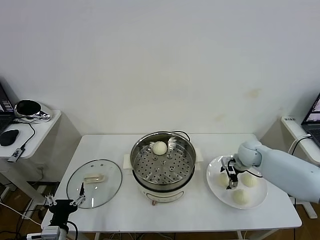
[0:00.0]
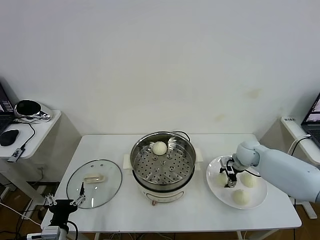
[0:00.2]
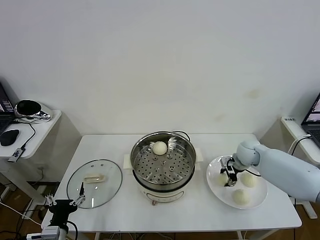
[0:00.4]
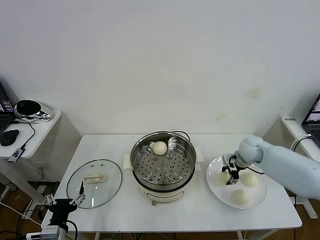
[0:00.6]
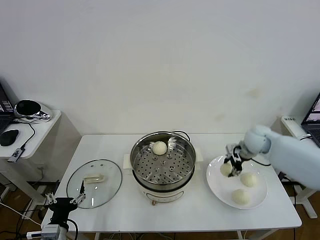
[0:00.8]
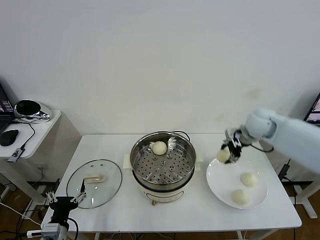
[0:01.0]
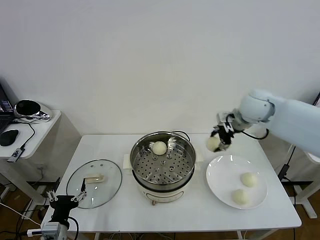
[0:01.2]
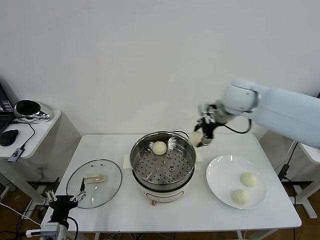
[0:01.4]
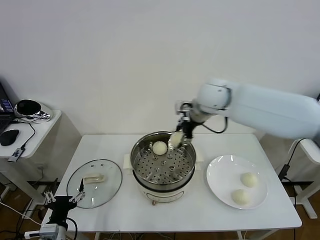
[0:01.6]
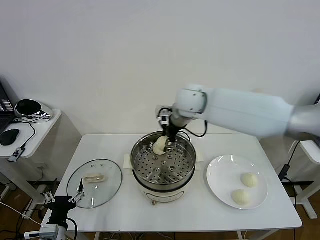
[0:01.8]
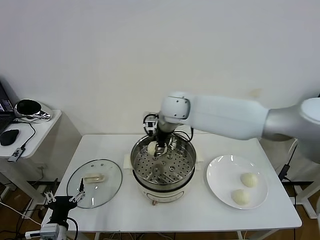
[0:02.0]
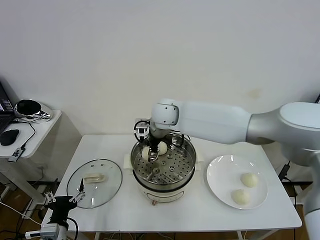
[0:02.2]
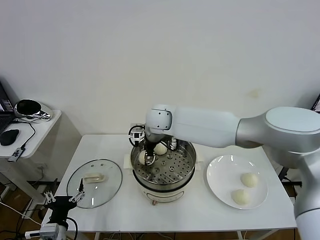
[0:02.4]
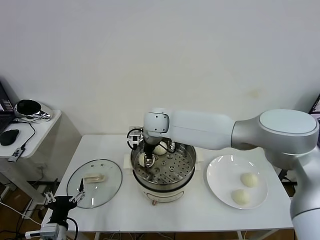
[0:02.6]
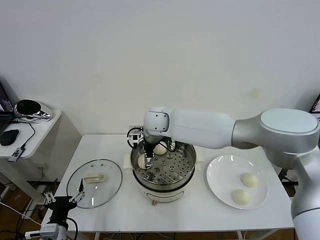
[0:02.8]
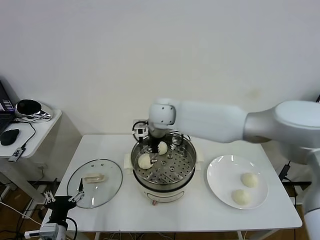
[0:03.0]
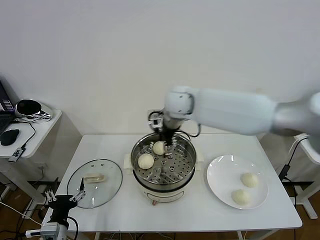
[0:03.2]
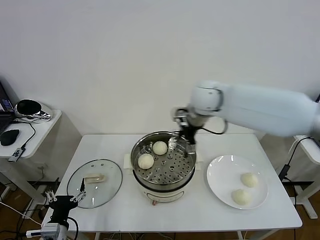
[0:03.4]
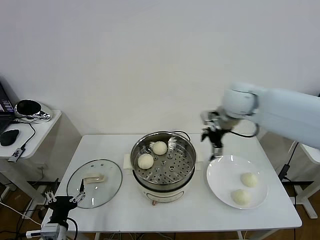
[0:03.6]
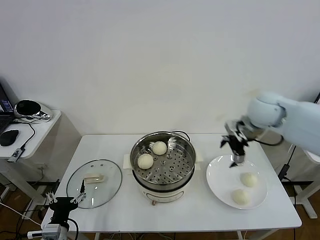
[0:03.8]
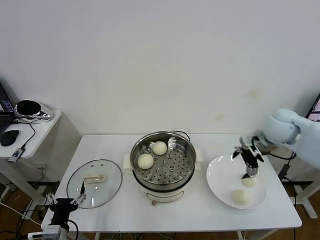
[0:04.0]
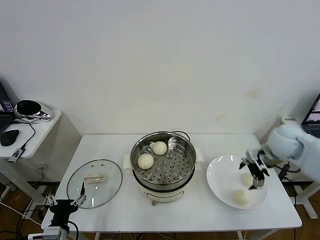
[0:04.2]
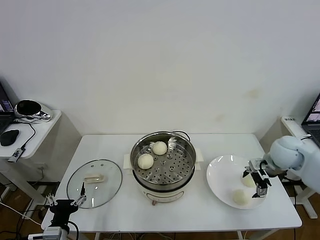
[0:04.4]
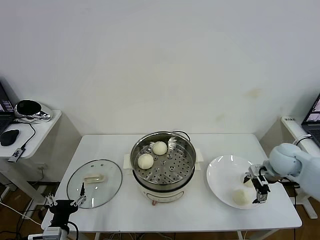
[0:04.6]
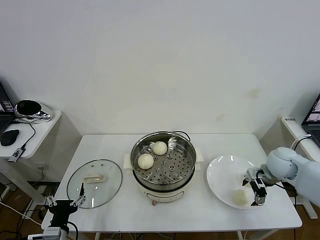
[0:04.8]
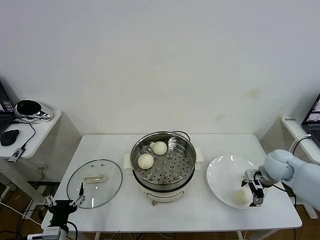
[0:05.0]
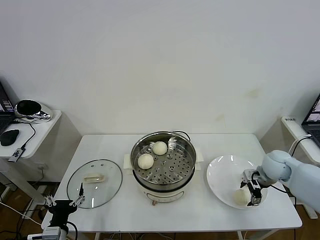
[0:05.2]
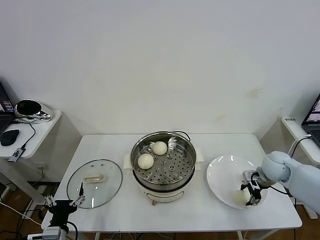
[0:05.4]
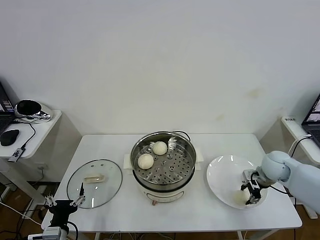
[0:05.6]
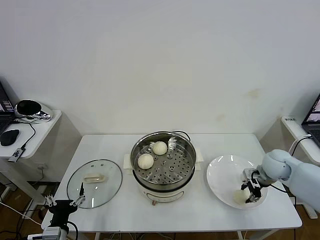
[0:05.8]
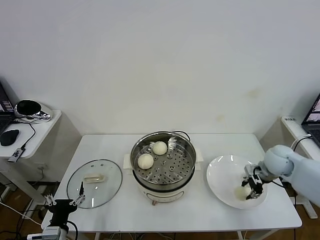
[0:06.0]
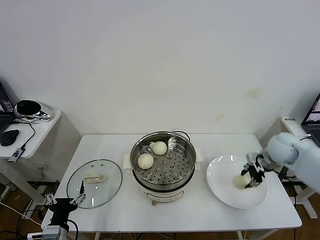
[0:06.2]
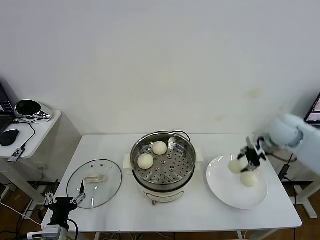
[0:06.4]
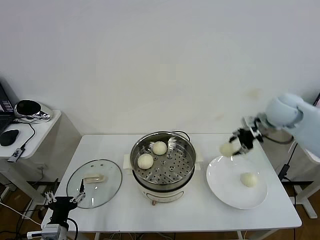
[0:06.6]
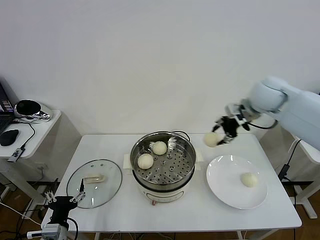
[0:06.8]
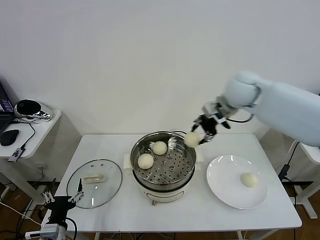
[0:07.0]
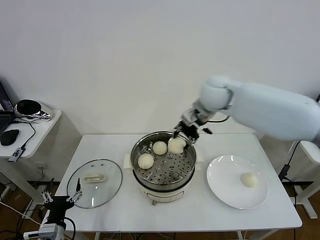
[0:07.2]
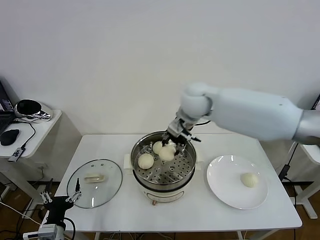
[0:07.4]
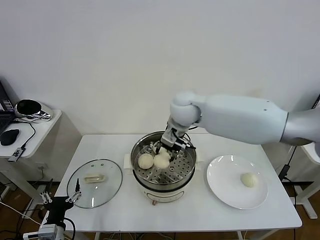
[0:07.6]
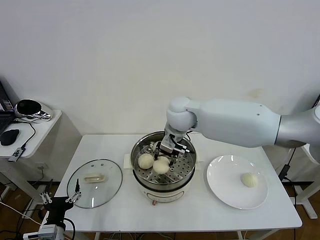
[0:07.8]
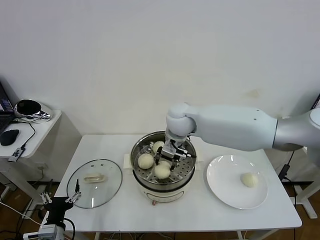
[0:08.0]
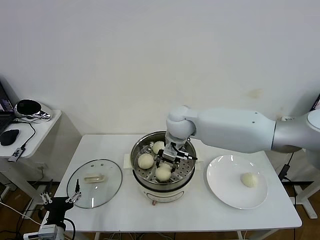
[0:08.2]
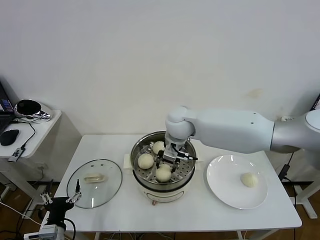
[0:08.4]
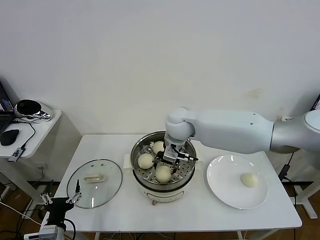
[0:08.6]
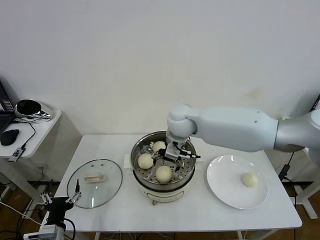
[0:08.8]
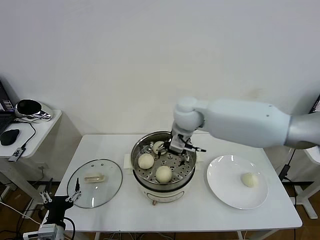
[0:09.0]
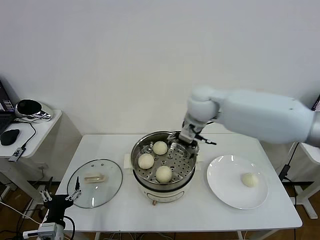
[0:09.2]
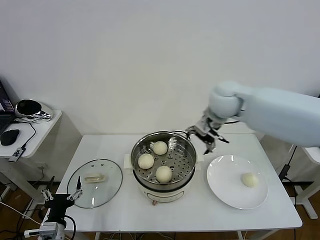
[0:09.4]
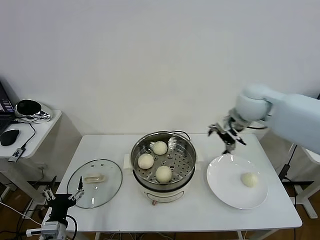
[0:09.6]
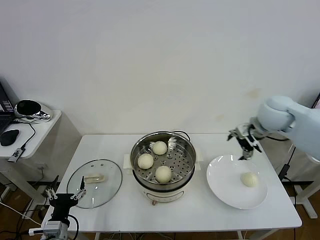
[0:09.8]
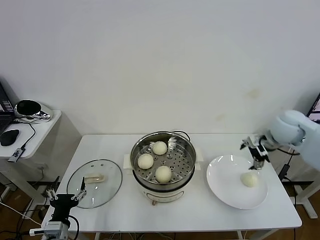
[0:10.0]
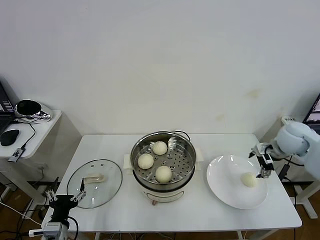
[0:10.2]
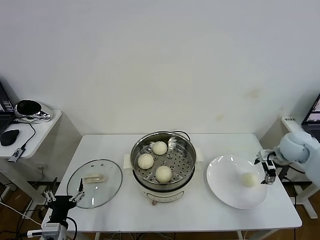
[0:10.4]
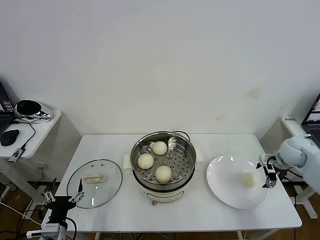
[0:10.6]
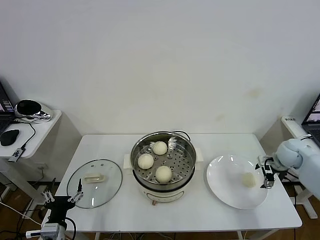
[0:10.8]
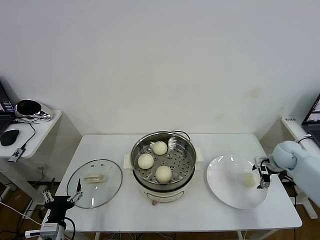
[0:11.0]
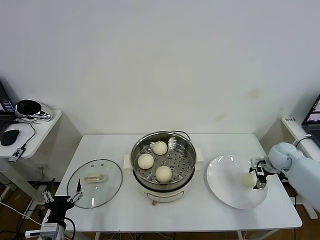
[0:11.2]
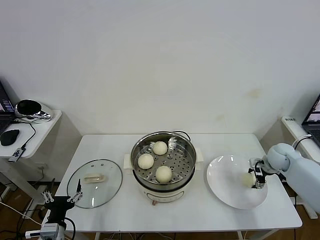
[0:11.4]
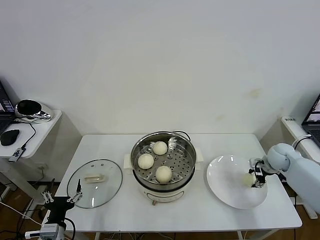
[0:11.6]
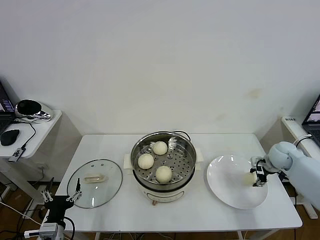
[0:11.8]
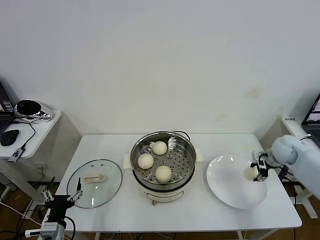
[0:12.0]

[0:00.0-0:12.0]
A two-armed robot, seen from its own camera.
Task of the whole recording: take steamed baozi put them in steamer then cover it.
Step, 0:00.6 to 0:02.8: Place the baozi on the steamer with right gripper.
Step, 0:03.0 to 0:05.6: Grasp the baozi in the plate with right gripper.
Step, 0:06.0 to 0:08.8: Place the baozi on the steamer with right gripper.
Step, 0:09.0 to 0:11.6: Grasp the baozi in the plate with right gripper.
0:00.0 to 0:01.6: The right gripper travels upward and to the left by approximately 35 cm, and closes its fingers.
0:01.6 to 0:03.0: The right gripper goes roughly 10 cm to the left, and opens its fingers.
0:03.0 to 0:04.4: The right gripper is displaced to the right by roughly 35 cm.
0:04.4 to 0:06.0: The right gripper closes.
0:06.0 to 0:07.6: The right gripper travels to the left and upward by roughly 35 cm.
0:07.6 to 0:09.0: The right gripper opens its fingers.
0:09.0 to 0:10.4: The right gripper goes some 35 cm to the right.
0:10.4 to 0:12.0: The right gripper moves approximately 10 cm downward and comes back, and closes its fingers.

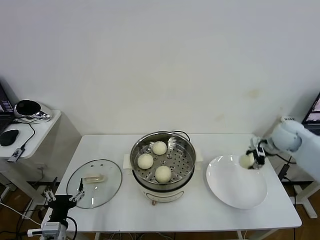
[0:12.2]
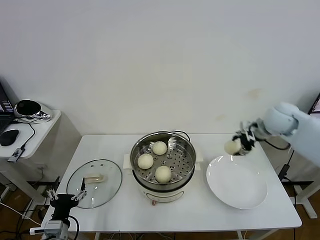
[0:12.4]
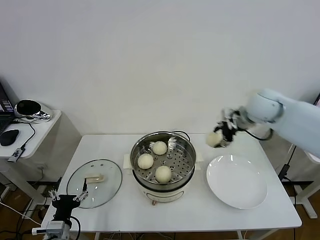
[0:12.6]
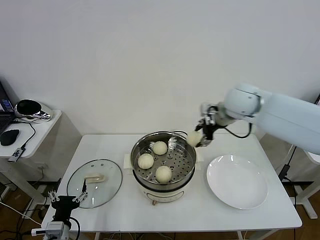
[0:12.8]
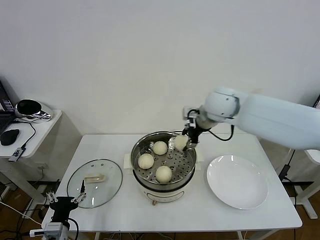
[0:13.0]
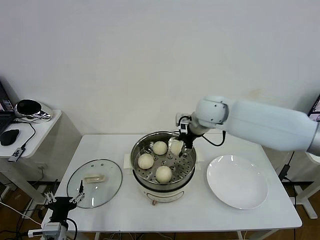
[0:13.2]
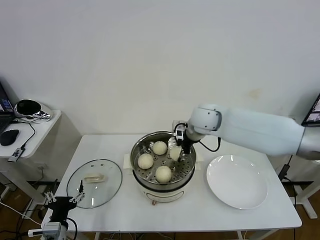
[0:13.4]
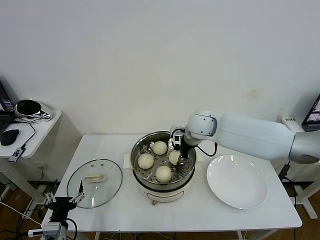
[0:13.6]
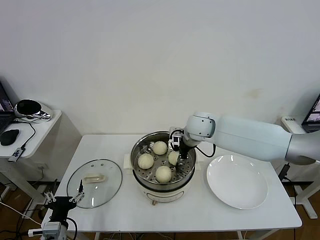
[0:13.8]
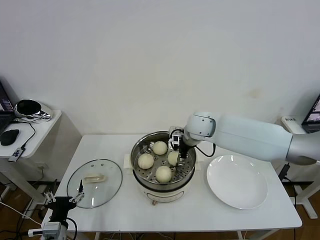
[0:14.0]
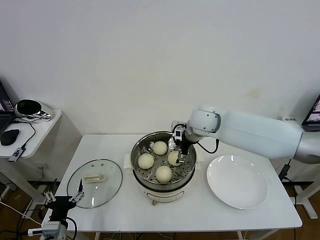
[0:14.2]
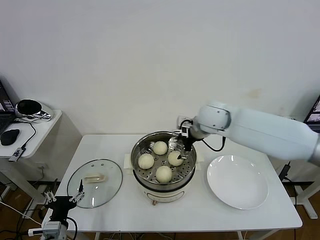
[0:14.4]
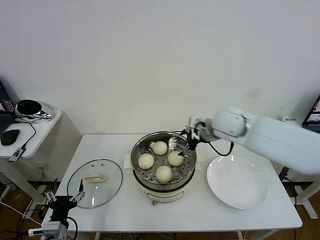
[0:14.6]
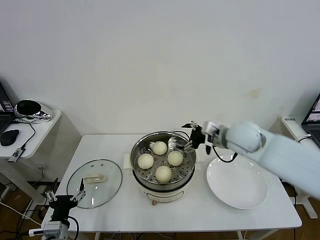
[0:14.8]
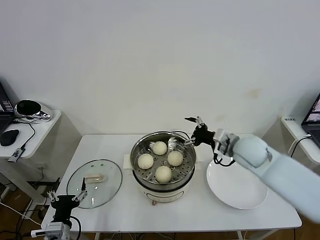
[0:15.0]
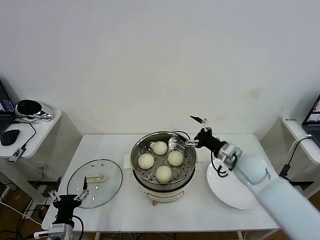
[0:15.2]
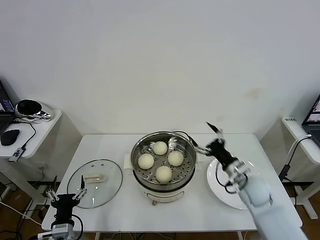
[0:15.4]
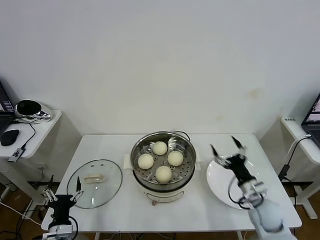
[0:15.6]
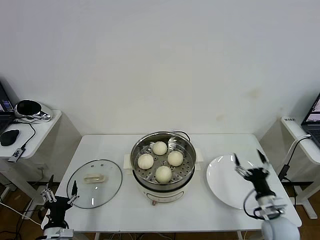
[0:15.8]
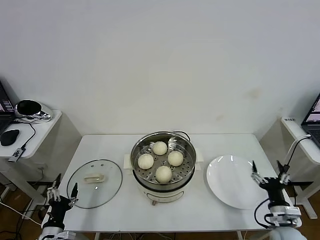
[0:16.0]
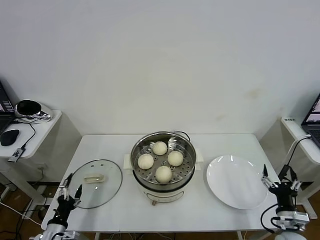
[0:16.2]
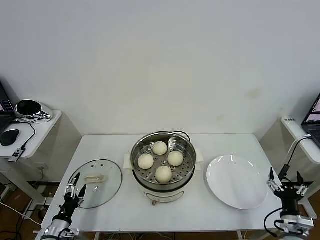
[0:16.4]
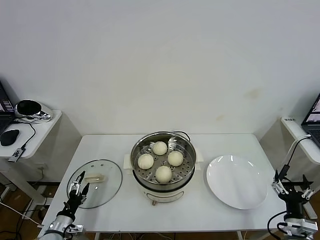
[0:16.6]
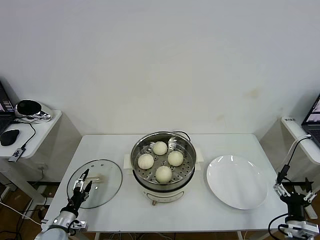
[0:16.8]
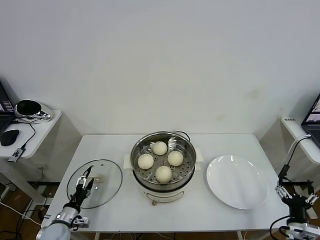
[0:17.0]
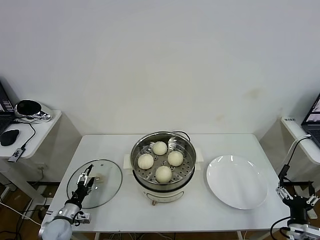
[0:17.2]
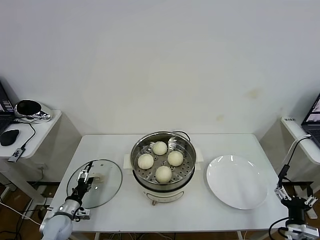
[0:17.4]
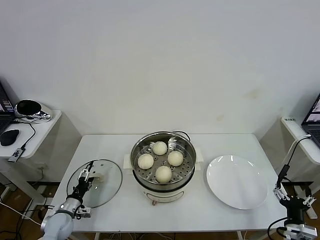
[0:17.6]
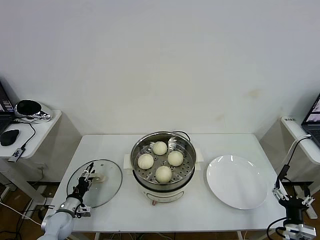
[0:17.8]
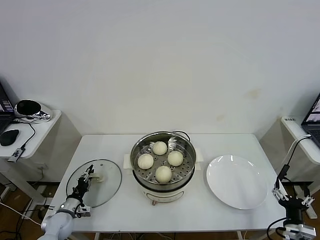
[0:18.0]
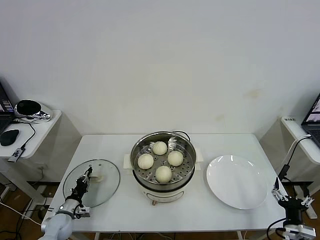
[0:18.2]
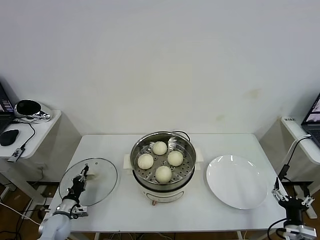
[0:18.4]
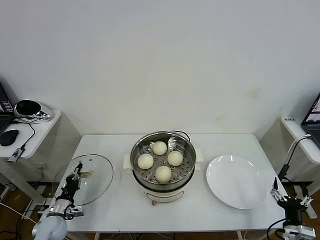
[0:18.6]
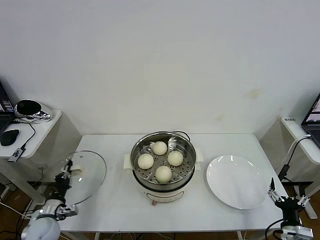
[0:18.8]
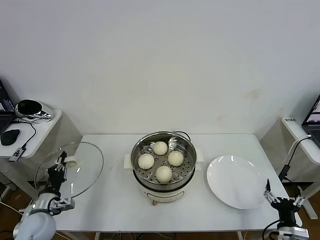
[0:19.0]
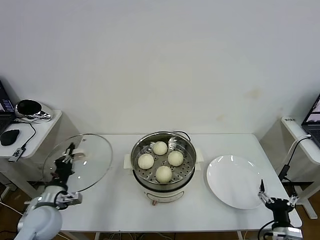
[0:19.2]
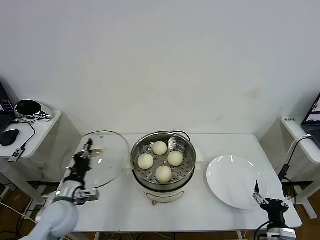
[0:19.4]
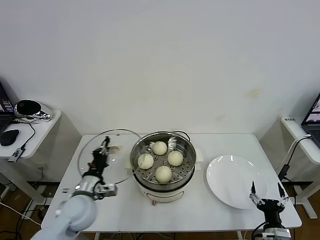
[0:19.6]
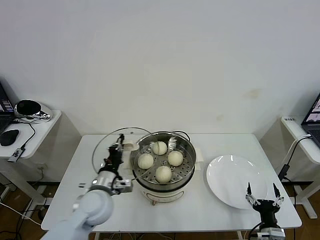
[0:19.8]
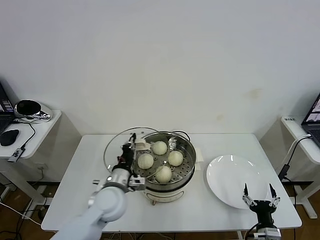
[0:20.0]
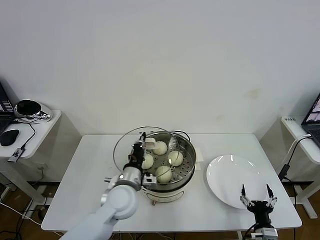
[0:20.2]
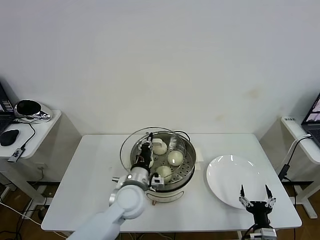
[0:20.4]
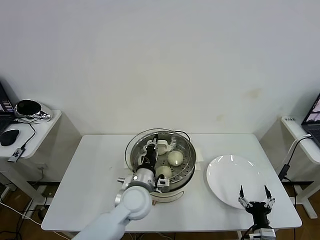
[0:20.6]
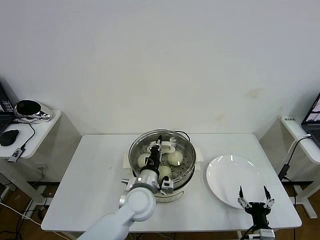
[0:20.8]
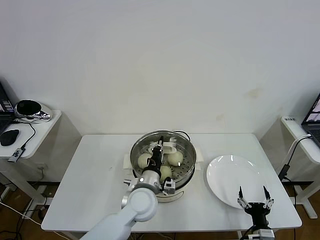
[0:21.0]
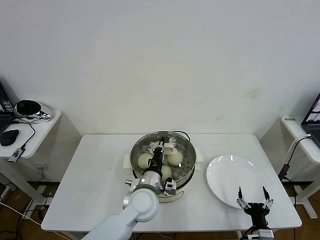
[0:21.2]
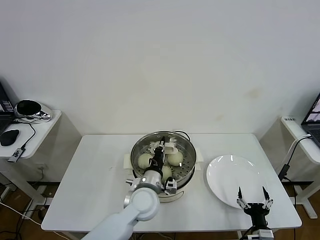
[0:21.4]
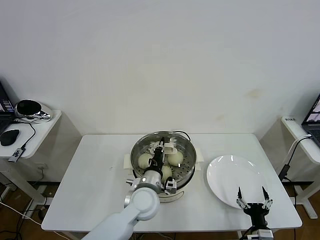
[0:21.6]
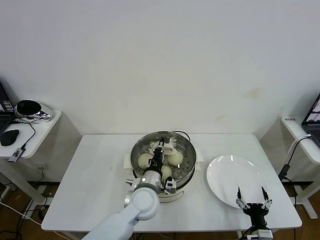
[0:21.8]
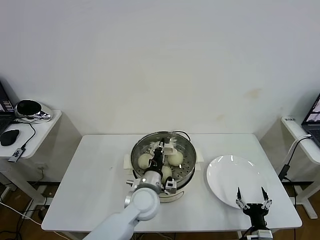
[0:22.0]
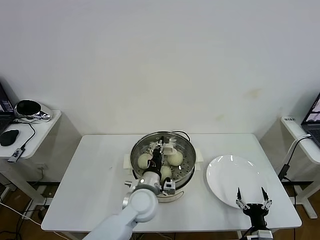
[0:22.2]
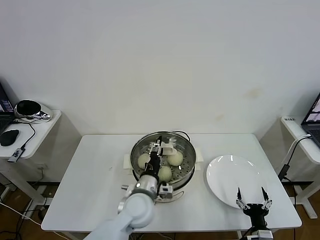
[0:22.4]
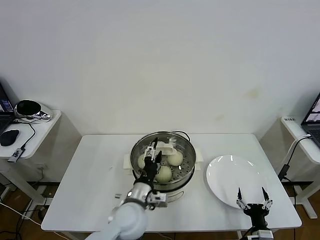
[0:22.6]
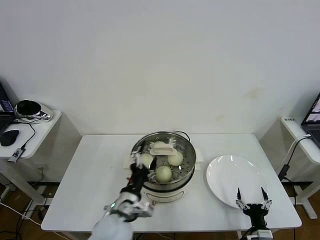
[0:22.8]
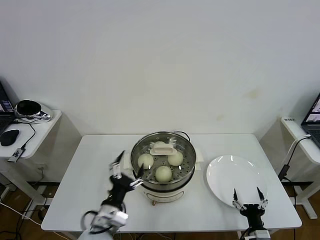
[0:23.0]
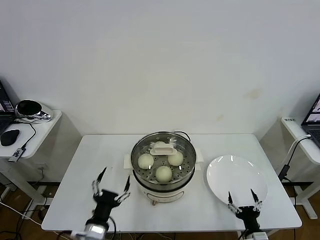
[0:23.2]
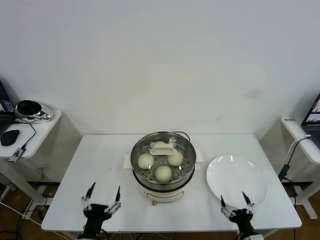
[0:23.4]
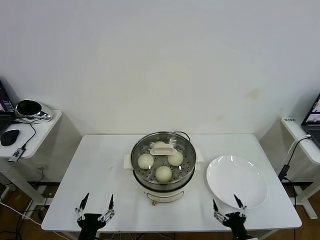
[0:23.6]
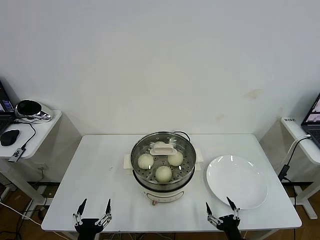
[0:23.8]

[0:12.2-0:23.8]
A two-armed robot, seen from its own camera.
Task of the whole recording: take steamed baozi put them in steamer then cover it.
Step, 0:12.2 to 0:14.2: Place the baozi on the steamer with right gripper.
Step, 0:14.4 to 0:18.4: Grasp the pot lid with left gripper.
Step, 0:18.6 to 0:22.4: Place the pot lid on the steamer with left gripper.
0:12.2 to 0:13.6: The right gripper moves to the left, roughly 30 cm.
0:13.6 to 0:15.0: The right gripper goes about 15 cm to the right and backward, and opens.
0:15.0 to 0:16.6: The right gripper is displaced backward, downward and to the right by some 35 cm; the left gripper heads downward, to the left and forward, covering roughly 10 cm.
0:16.6 to 0:18.0: The left gripper is displaced forward by approximately 10 cm, and closes up.
0:18.0 to 0:19.4: The left gripper is displaced upward and to the right by approximately 20 cm, and closes its fingers.
0:19.4 to 0:21.0: The left gripper heads to the right, covering roughly 25 cm.
0:21.0 to 0:22.4: The left gripper opens its fingers.
0:22.4 to 0:23.8: The right gripper is displaced to the left by about 5 cm. Meanwhile the left gripper travels backward and to the left by approximately 25 cm, and opens up.
